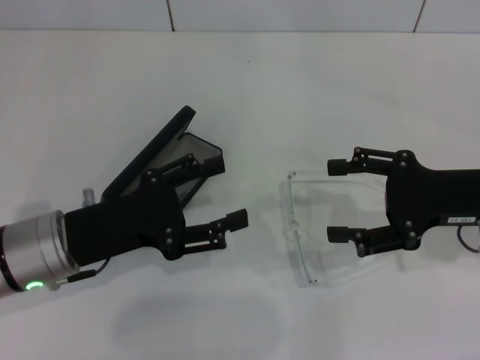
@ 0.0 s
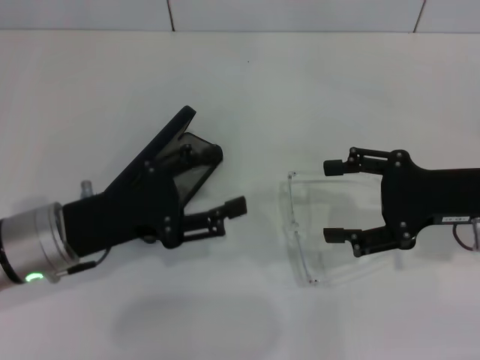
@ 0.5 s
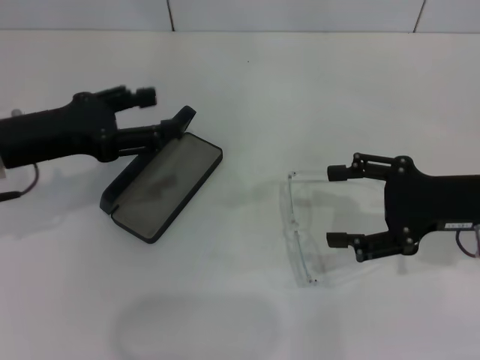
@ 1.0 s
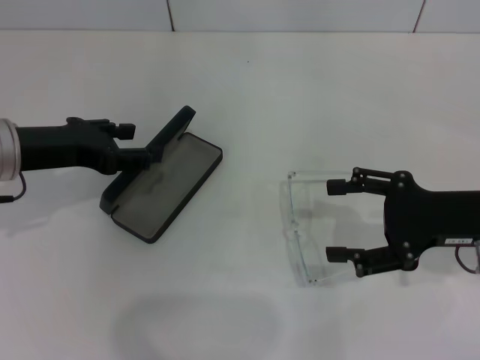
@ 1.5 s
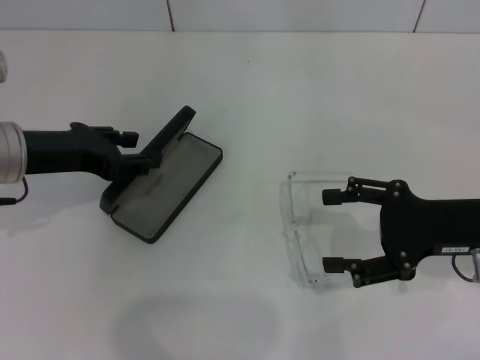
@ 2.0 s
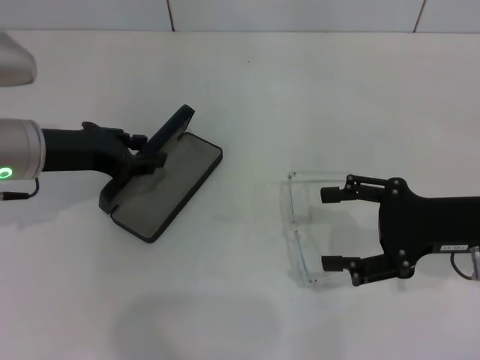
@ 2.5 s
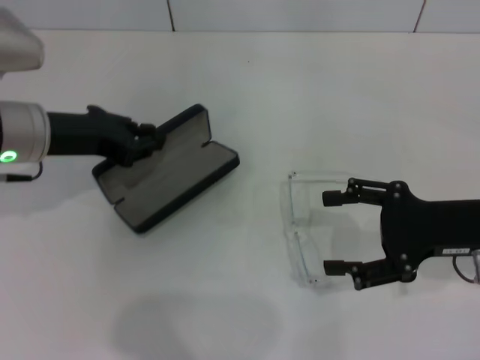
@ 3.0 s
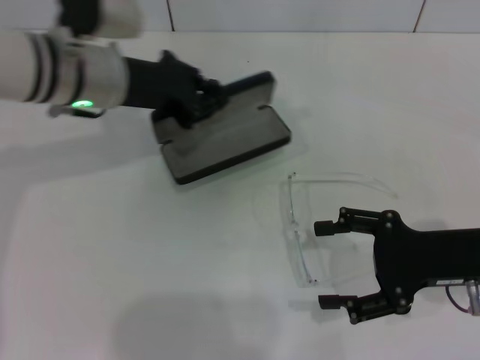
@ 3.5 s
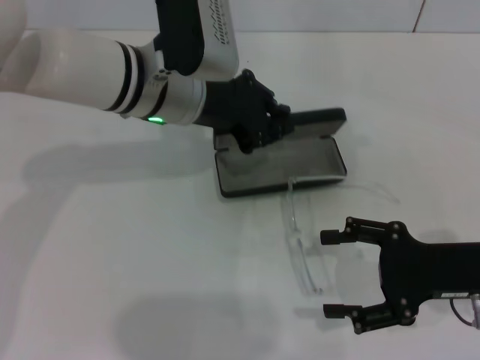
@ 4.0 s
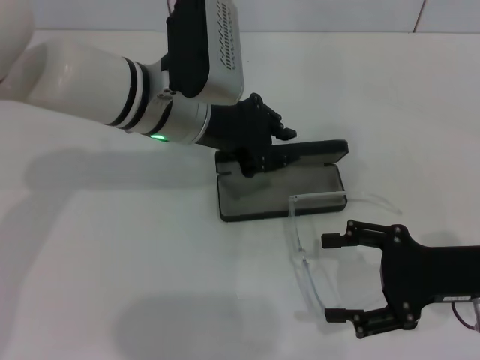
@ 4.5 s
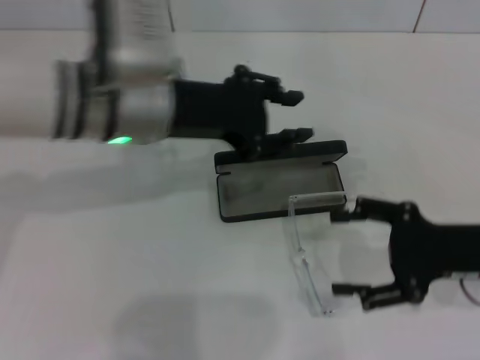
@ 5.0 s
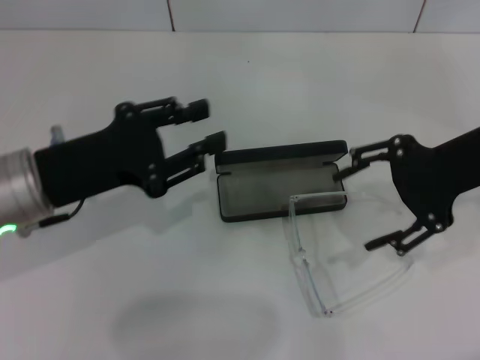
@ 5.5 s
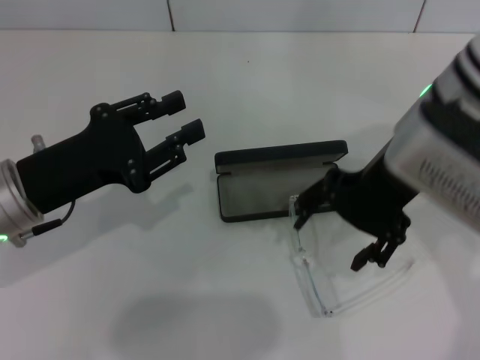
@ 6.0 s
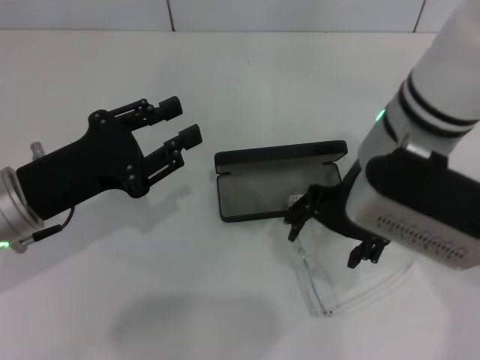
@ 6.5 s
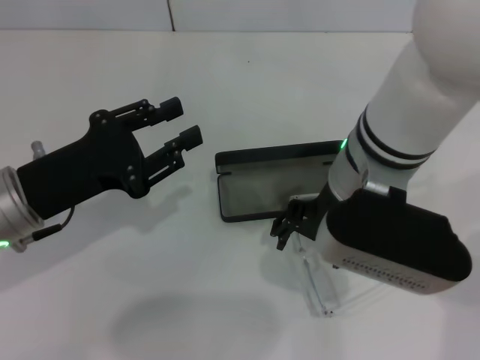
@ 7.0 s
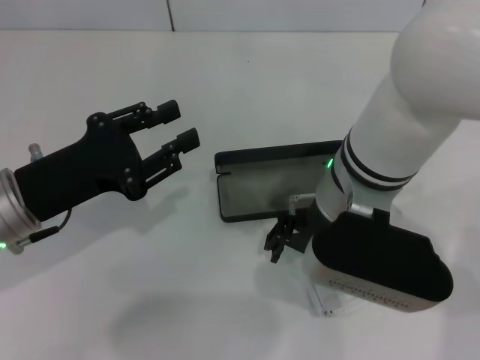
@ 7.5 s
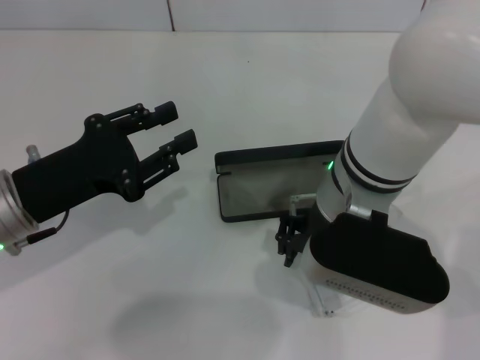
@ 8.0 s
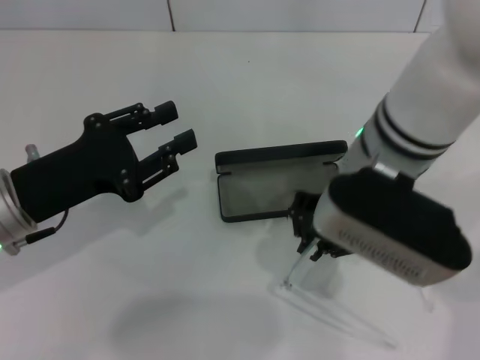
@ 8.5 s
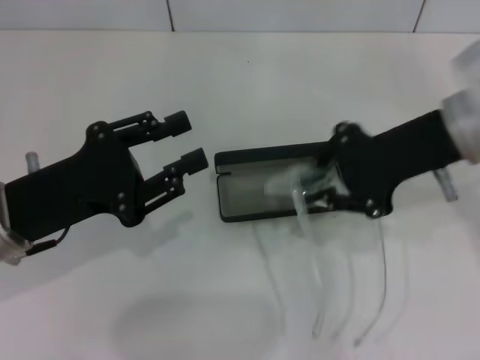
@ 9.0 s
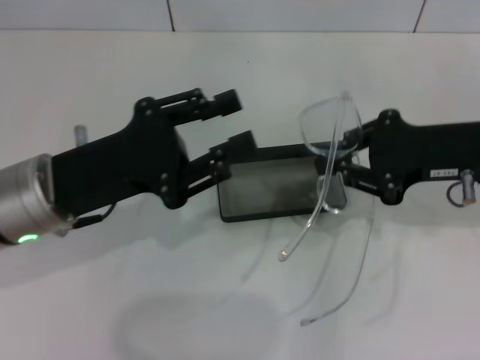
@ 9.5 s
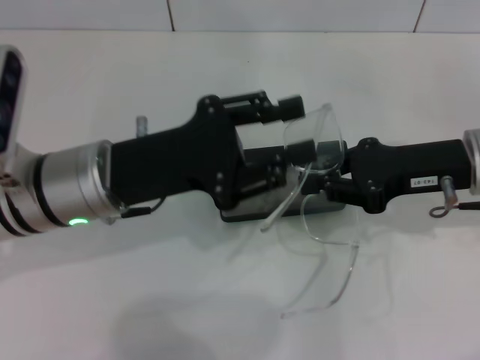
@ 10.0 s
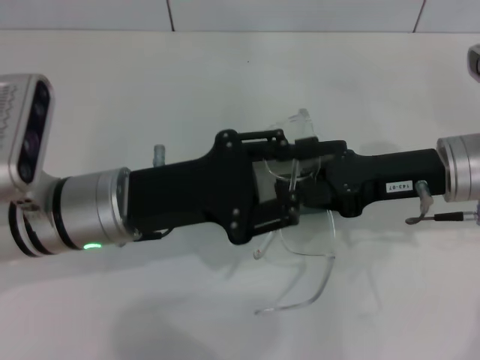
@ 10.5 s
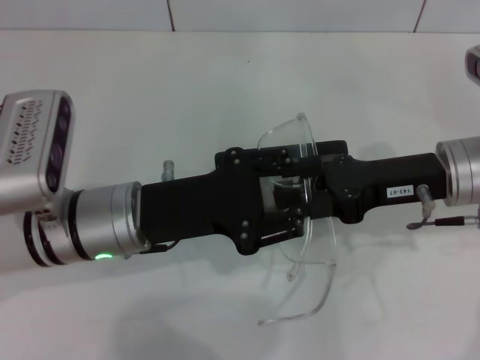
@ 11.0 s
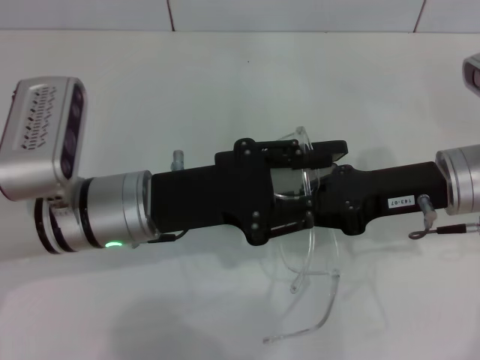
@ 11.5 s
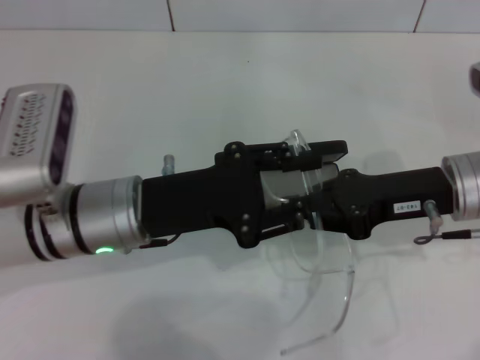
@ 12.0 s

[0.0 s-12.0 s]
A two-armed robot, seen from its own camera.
Step, 0.0 to 2.5 s: Grab the glasses case with your left hand.
Step, 3.0 to 5.0 s: Place the glasses case in the center of the table with your left hand.
Step, 5.5 to 8.0 s: Grab the eyeglass frame with your right hand.
0.0 to 2.0 s: The left gripper moves forward and upward, roughly 10 cm.
2.0 to 4.0 s: The left gripper goes approximately 15 cm to the right, and closes up.
4.0 to 6.0 s: The right gripper shifts some 20 cm upward, to the left and forward, while the left gripper goes approximately 20 cm to the left and backward.
6.0 to 8.0 s: The right gripper heads to the left and downward, covering approximately 10 cm, and closes.
8.0 to 10.0 s: The left gripper is displaced to the right by about 10 cm; the right gripper is displaced to the right by about 15 cm, and closes up.

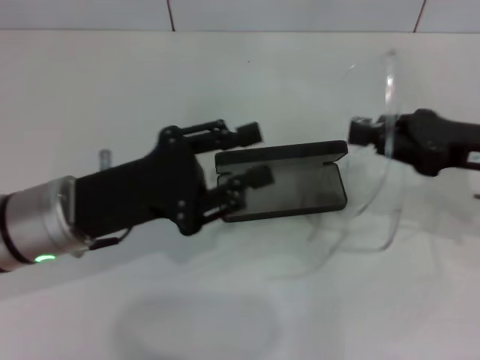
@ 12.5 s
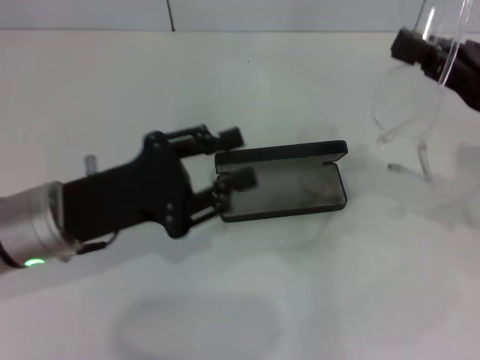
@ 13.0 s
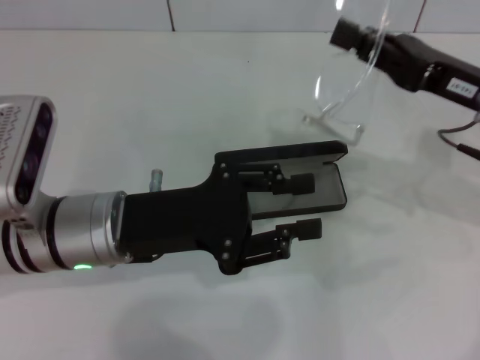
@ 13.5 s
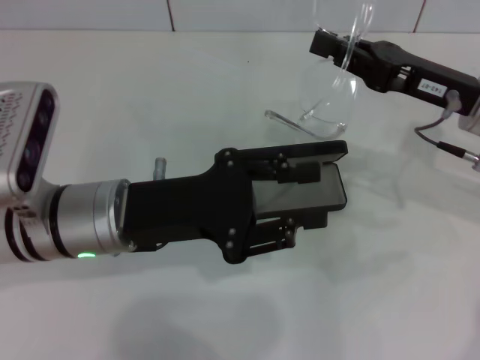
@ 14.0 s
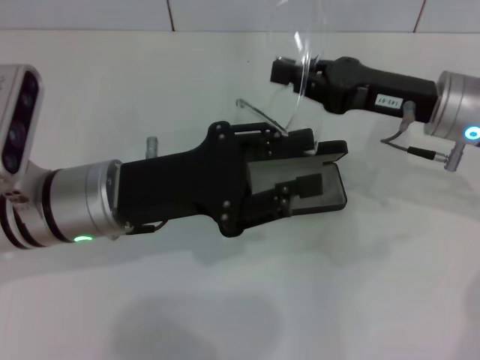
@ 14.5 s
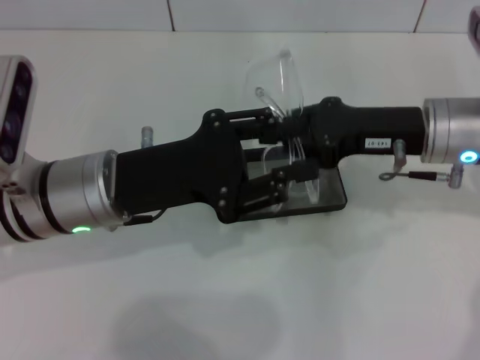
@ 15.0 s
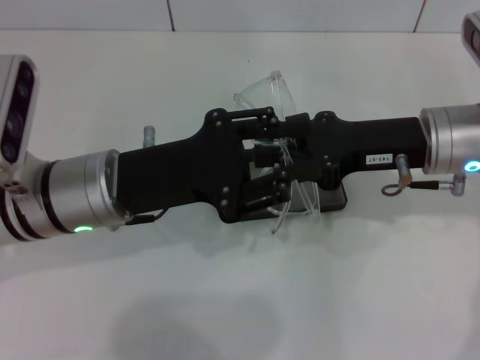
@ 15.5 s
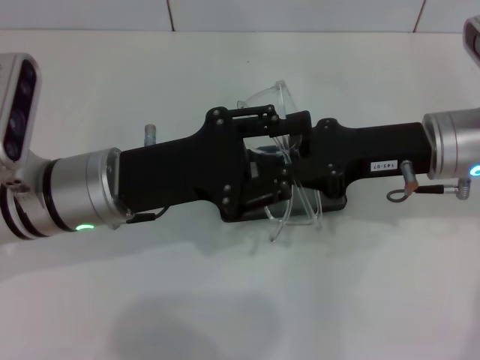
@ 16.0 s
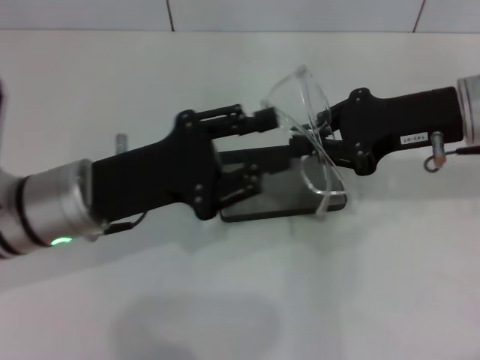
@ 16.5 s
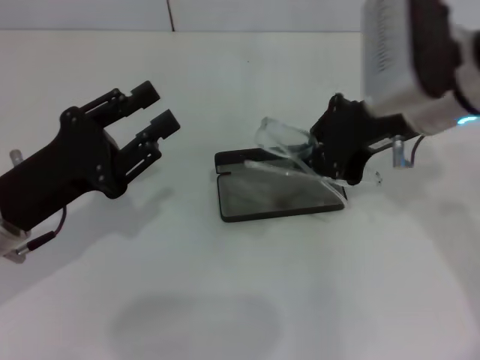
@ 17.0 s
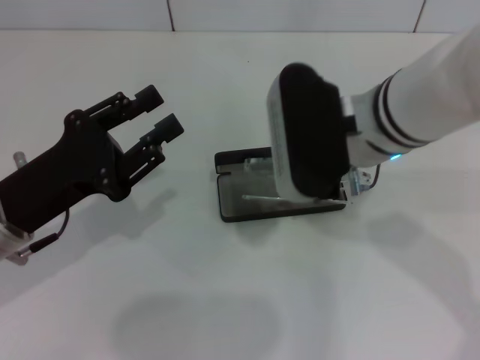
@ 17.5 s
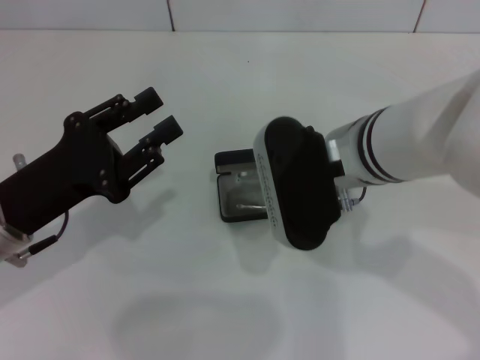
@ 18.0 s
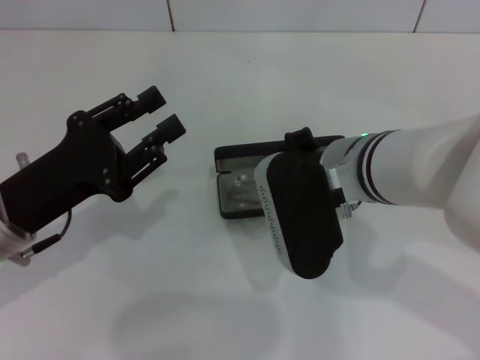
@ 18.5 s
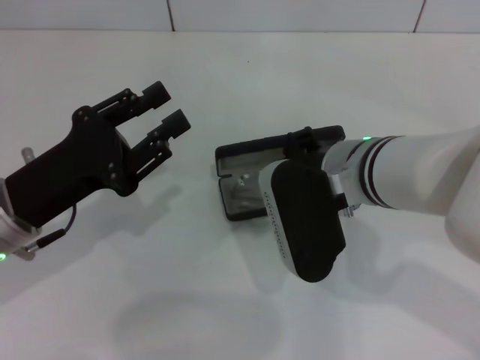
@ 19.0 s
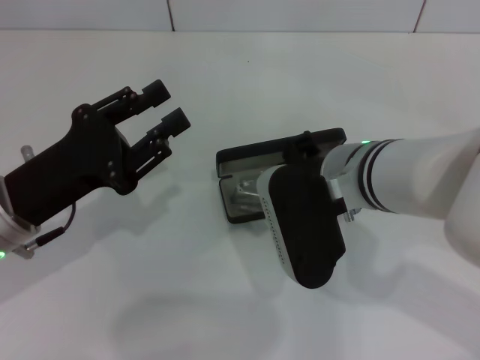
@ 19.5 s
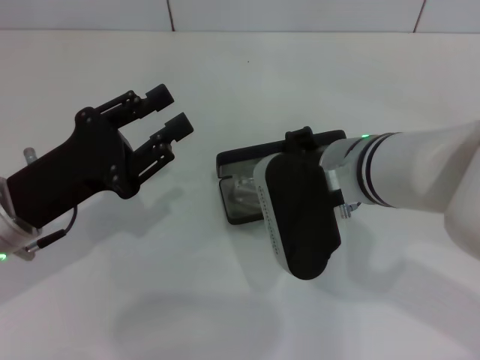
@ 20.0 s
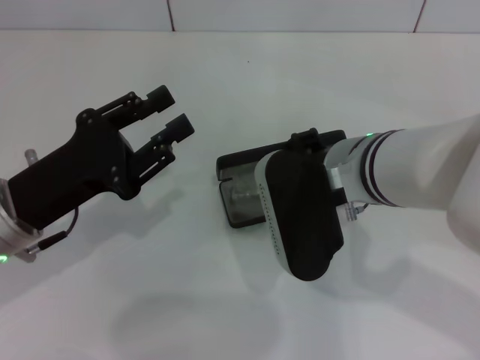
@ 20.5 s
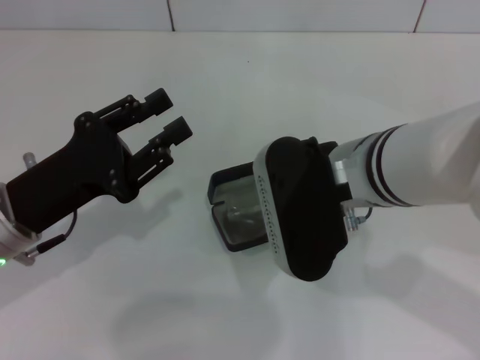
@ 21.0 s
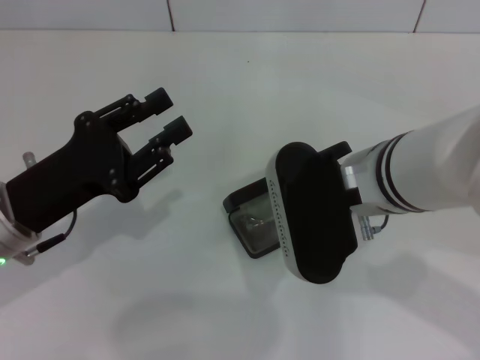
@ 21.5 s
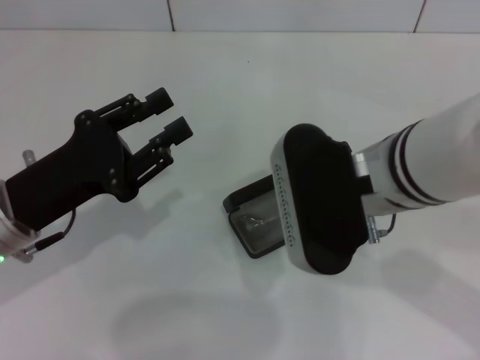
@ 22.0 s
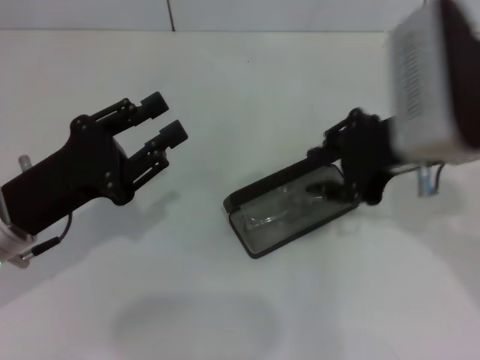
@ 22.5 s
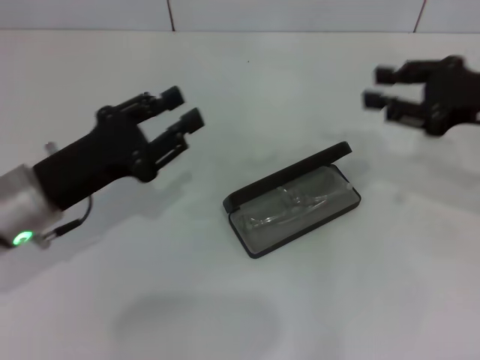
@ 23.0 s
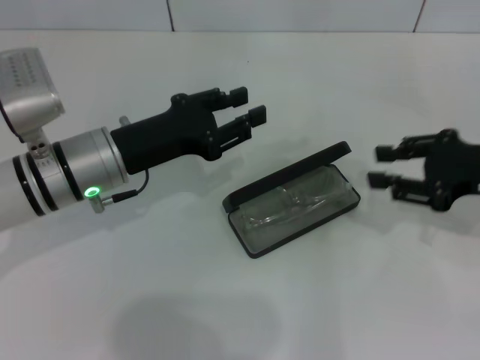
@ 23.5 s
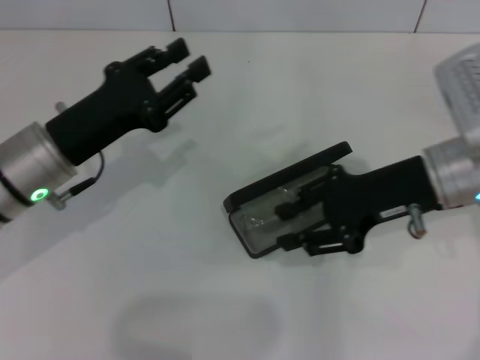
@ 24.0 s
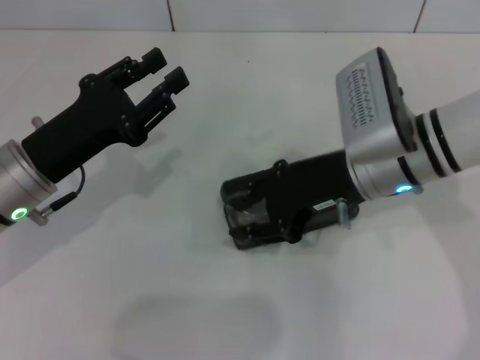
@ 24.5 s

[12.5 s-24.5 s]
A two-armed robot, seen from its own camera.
Step, 12.5 to 16.0 s: Fold the frame with your left hand.
Step, 16.5 to 21.5 s: Put the glasses into the case with your right hand.
12.5 to 14.5 s: The right gripper is displaced to the left by some 5 cm.
16.5 to 18.5 s: The left gripper travels to the left by about 5 cm. The right gripper shifts approximately 15 cm to the left.
18.5 to 20.5 s: The two grippers keep their place.
20.5 to 22.5 s: The right gripper is displaced to the right and upward by about 10 cm.
22.5 to 24.5 s: The right gripper goes roughly 10 cm downward, and travels to the right and back again, approximately 15 cm each way.

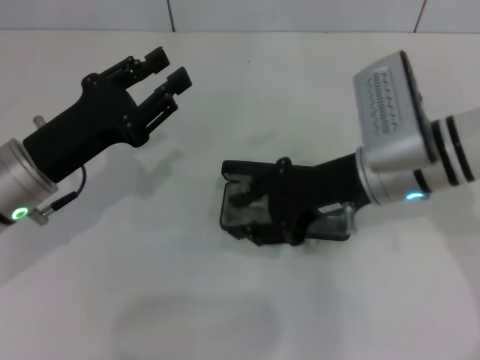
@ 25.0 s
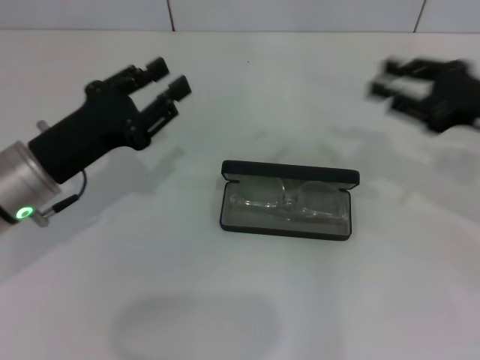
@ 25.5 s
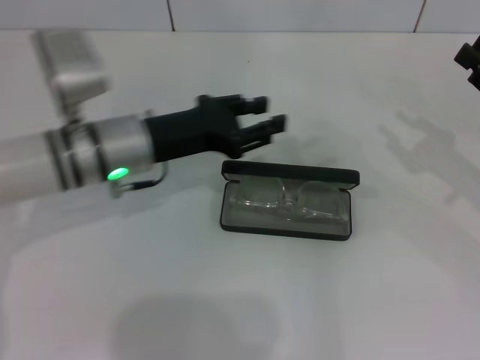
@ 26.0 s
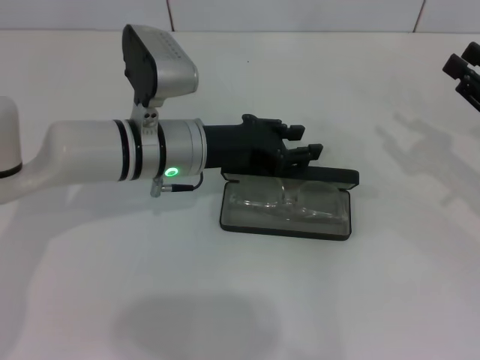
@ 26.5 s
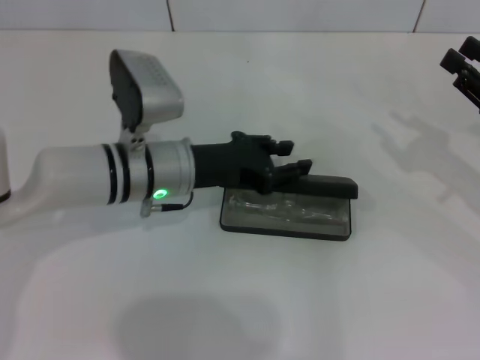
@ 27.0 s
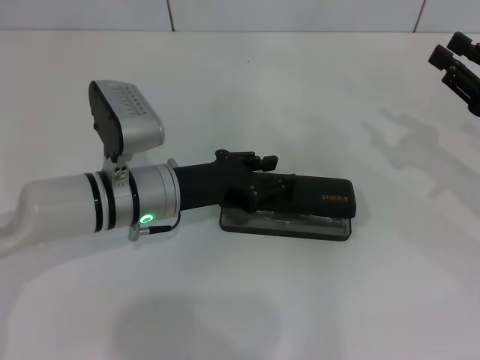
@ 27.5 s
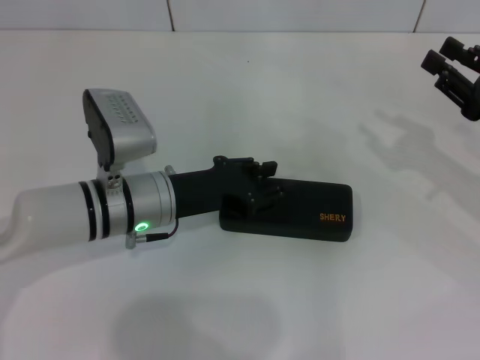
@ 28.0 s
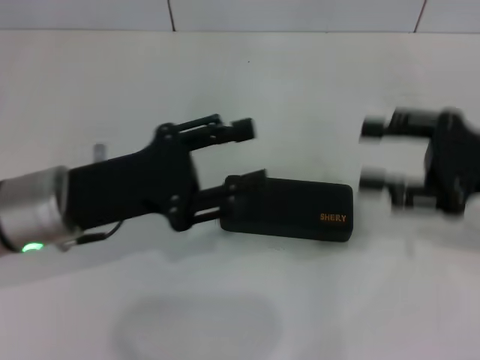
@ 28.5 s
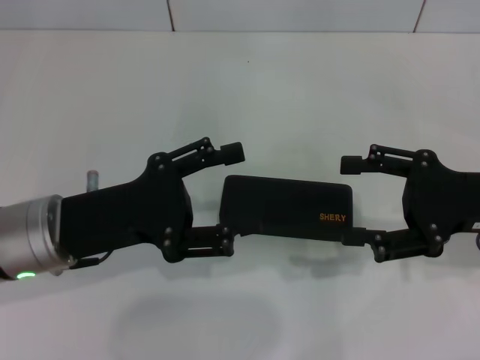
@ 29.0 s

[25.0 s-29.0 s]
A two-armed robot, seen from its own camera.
Step, 25.0 to 28.0 s: Close the glasses case with your left hand.
25.0 to 27.0 s: The right gripper moves to the right, roughly 20 cm. Meanwhile the left gripper is displaced to the right and forward by some 10 cm.
27.0 to 29.0 s: The right gripper heads to the left, covering some 5 cm, and opens its fingers; the left gripper travels backward and to the left by roughly 10 cm, and opens up.
